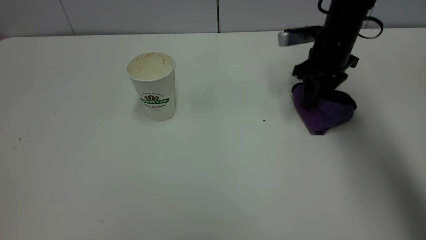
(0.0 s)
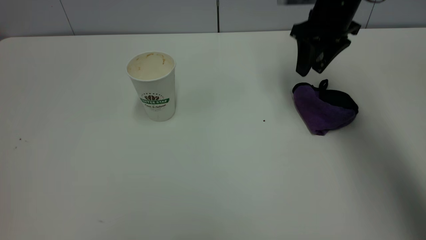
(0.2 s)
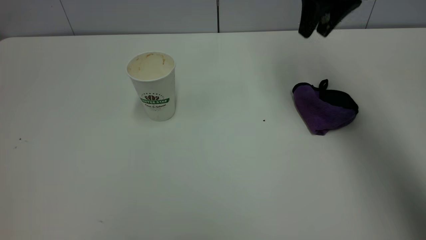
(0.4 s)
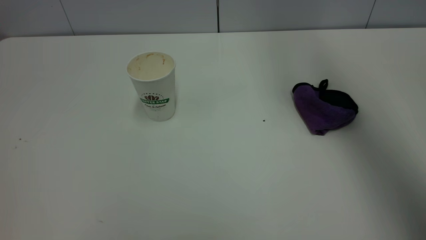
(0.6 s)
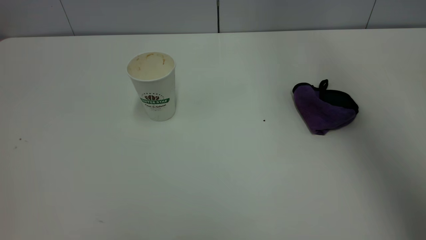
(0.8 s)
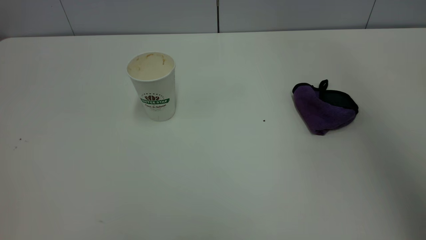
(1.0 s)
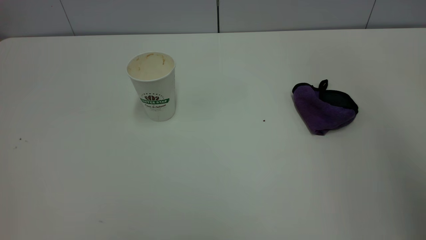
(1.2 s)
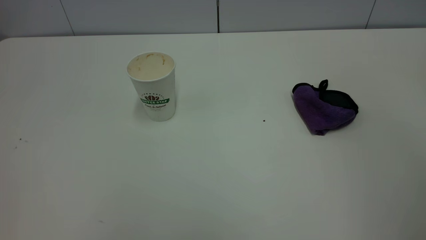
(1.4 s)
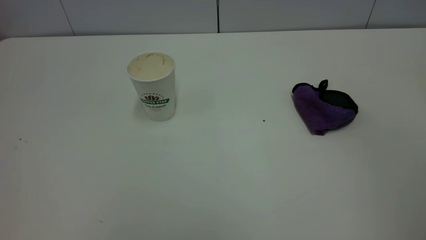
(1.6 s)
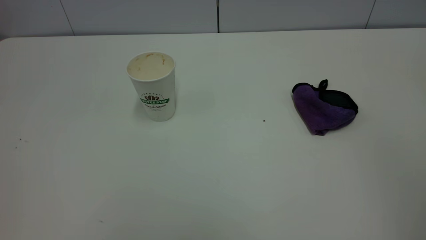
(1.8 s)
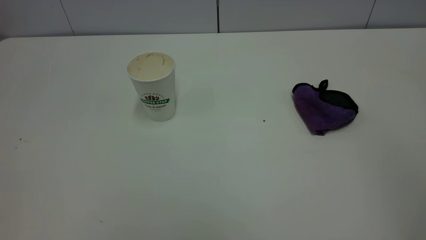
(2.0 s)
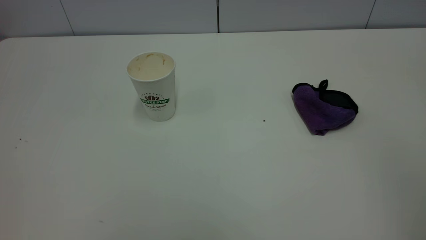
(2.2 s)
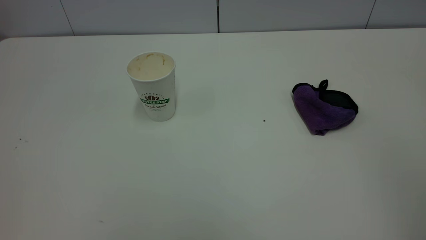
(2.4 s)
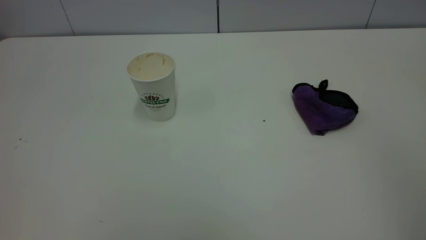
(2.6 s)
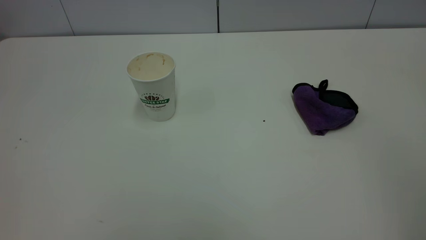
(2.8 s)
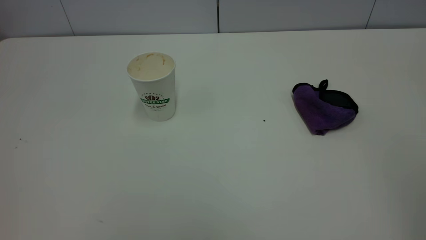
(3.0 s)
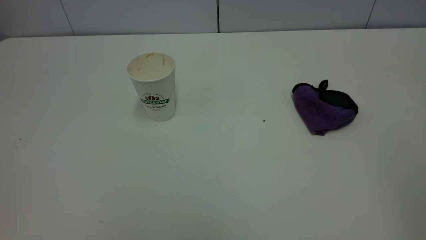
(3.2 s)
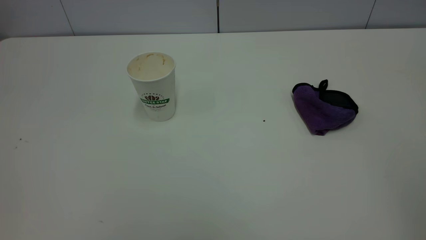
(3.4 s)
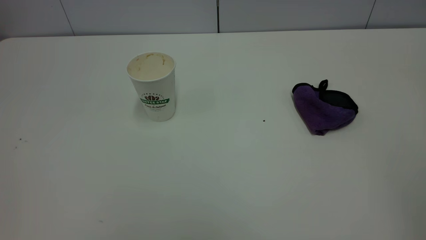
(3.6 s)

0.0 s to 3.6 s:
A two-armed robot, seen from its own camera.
Task of the whole recording: the left gripper pick up the fallen cup and place it upright, the right gripper grasp the purple rag and wipe the tea stain on the table, the right gripper put the purple rag back in its original position.
0.0 to 1.8 s: The right gripper travels backward and upward by roughly 50 cm.
